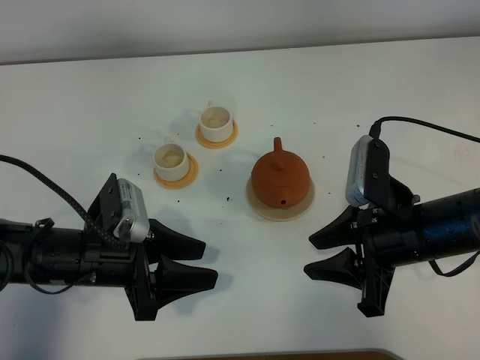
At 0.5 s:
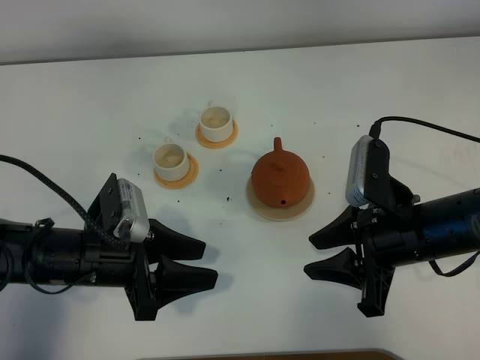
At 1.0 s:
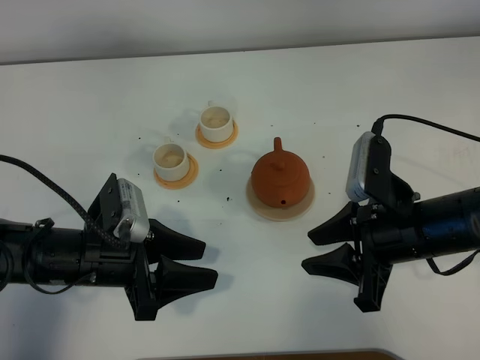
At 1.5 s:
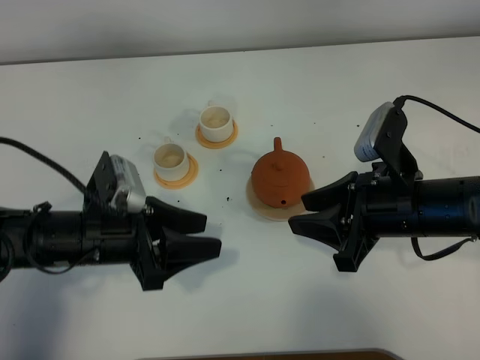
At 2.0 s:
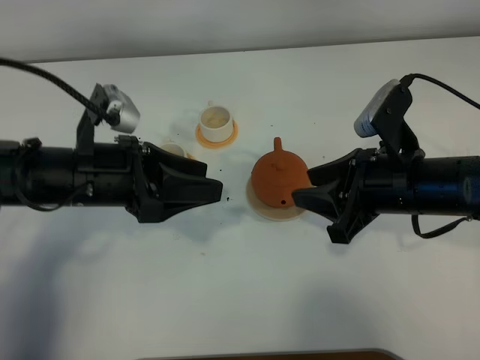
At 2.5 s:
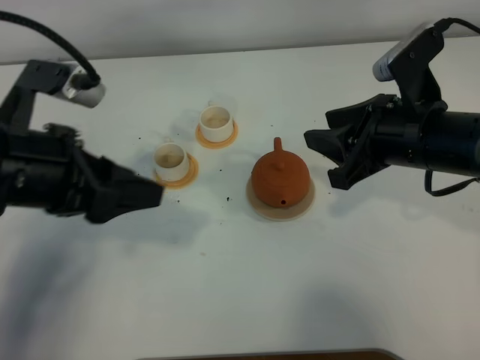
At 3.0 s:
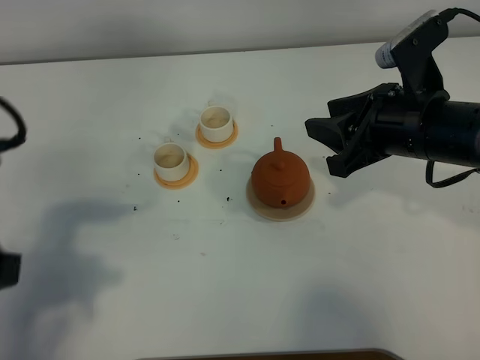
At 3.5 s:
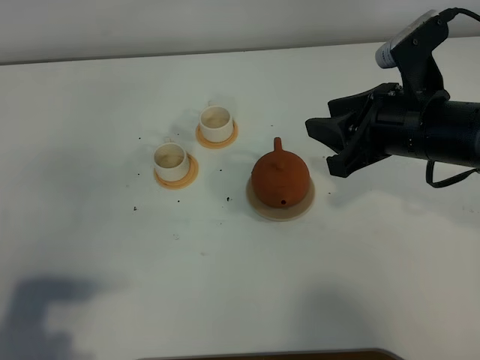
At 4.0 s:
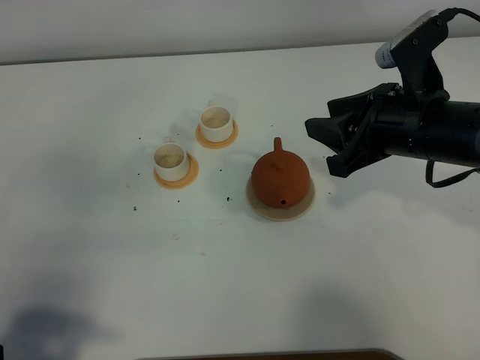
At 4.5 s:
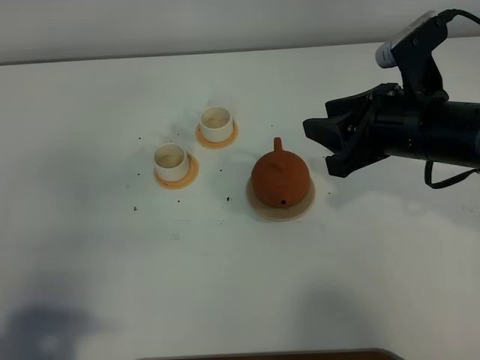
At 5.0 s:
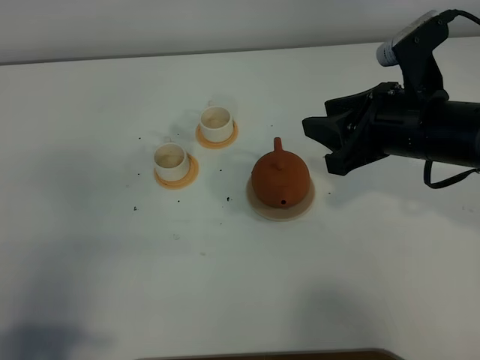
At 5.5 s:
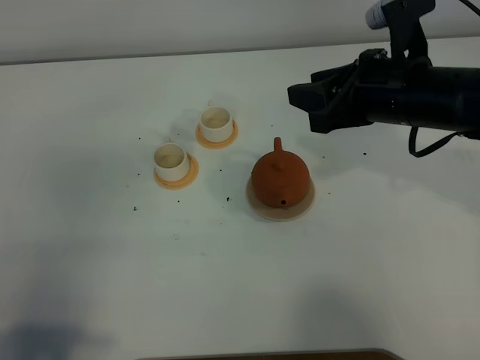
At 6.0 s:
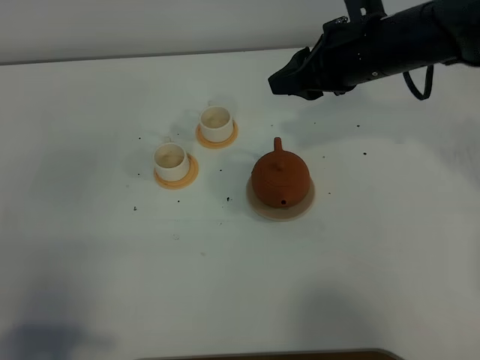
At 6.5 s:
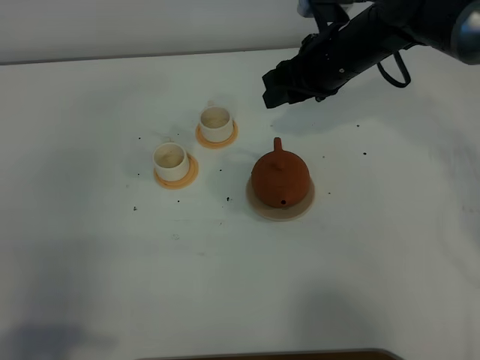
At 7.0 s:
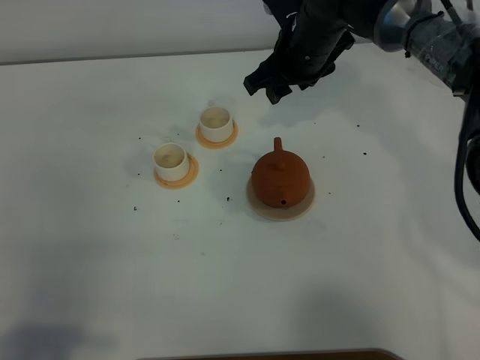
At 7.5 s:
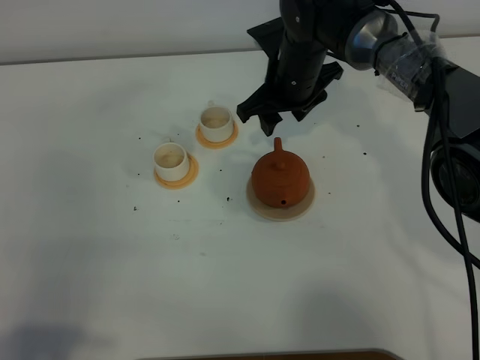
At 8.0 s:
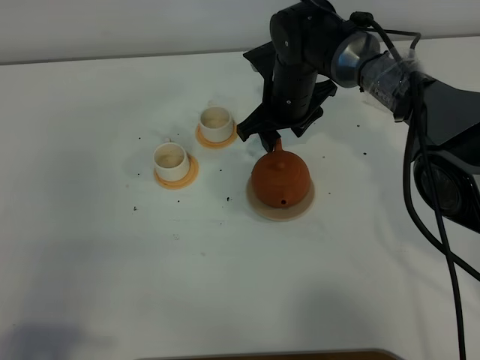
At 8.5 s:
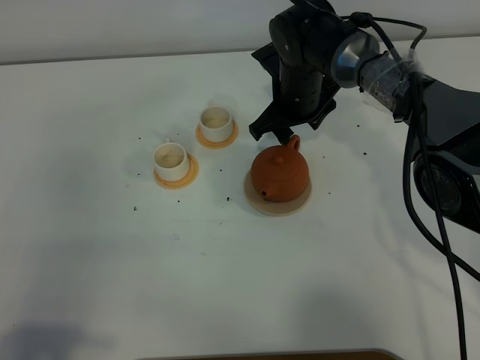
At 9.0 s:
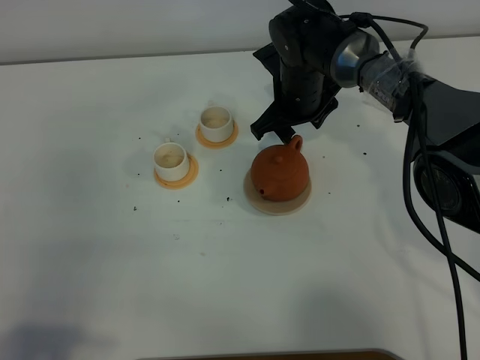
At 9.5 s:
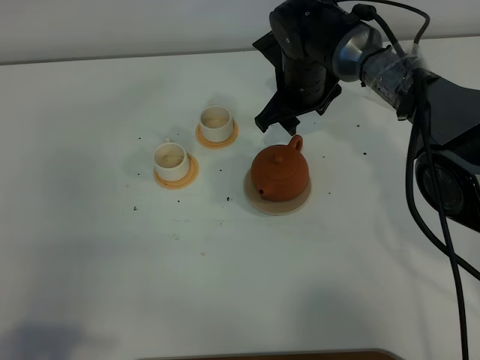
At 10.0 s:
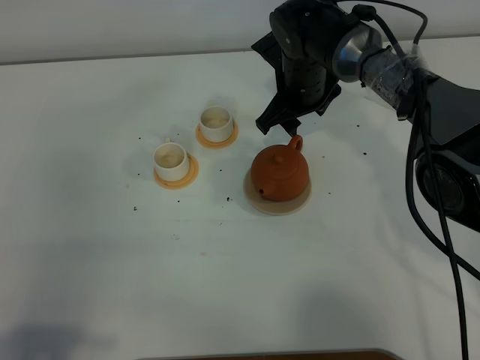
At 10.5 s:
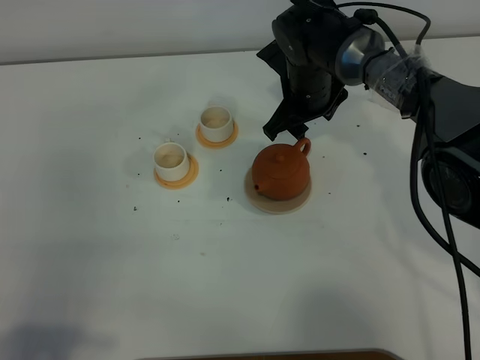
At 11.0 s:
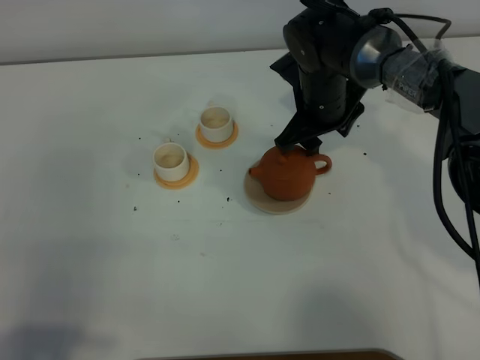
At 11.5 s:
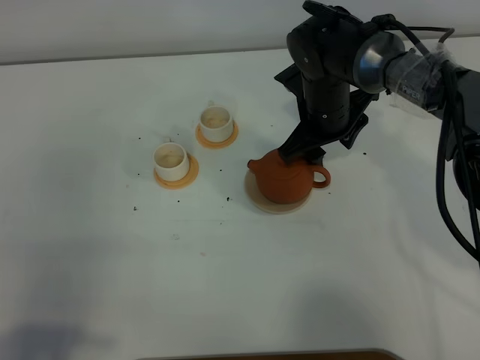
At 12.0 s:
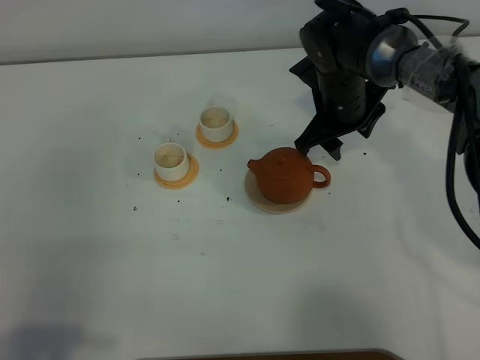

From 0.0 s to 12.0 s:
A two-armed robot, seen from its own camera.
Task of the whole recording: grasp the brown teapot and pour the tea into the two white teacups one by one, put the brown teapot back in its original place.
From 0.0 s to 2.0 s: The left gripper heads upward and forward, covering roughly 10 cm.
From 2.0 s to 4.0 s: The left gripper heads backward and to the left, covering roughly 25 cm. Meanwhile the right gripper heads upward, covering about 5 cm.
From 4.0 s to 6.0 s: The right gripper travels forward and to the left by about 10 cm.
From 6.0 s to 8.0 s: The right gripper goes some 15 cm downward, to the left and forward.
From 8.0 s to 10.0 s: The grippers make only small movements.
From 10.0 s to 12.0 s: The right gripper heads to the right, covering about 5 cm.

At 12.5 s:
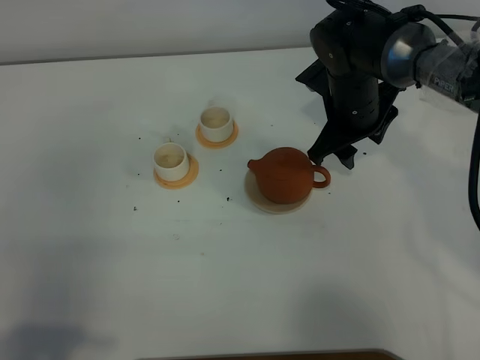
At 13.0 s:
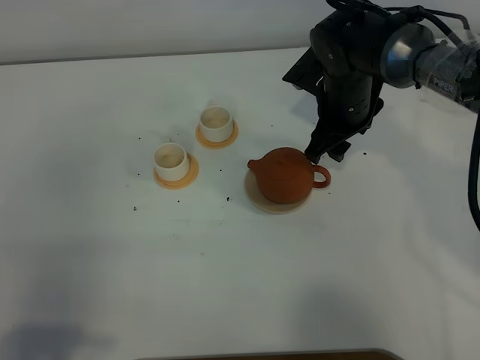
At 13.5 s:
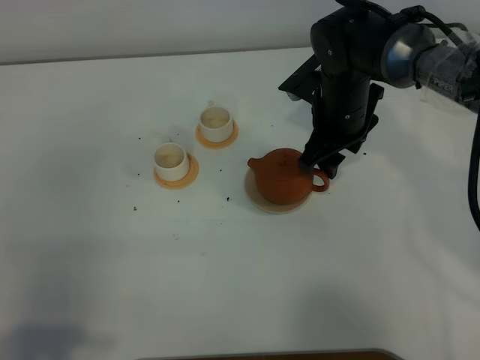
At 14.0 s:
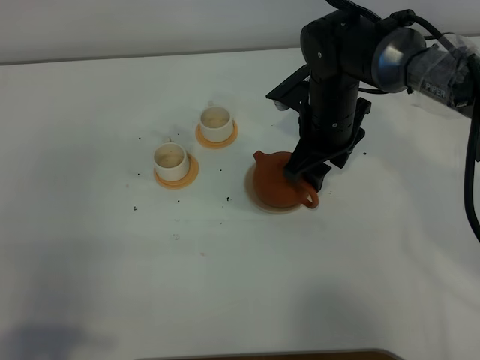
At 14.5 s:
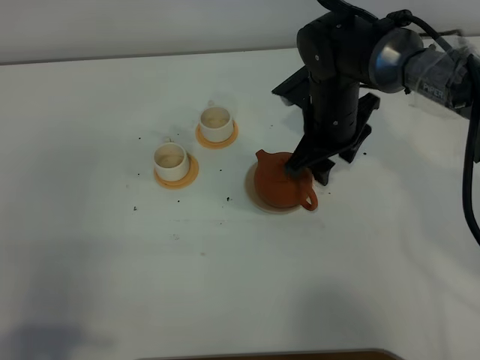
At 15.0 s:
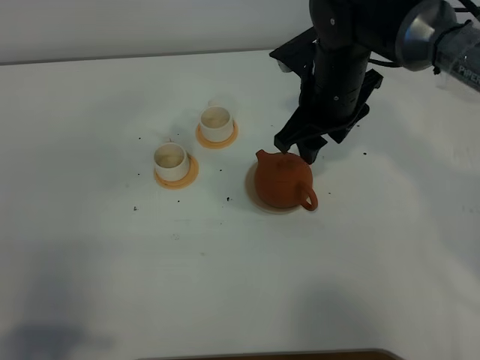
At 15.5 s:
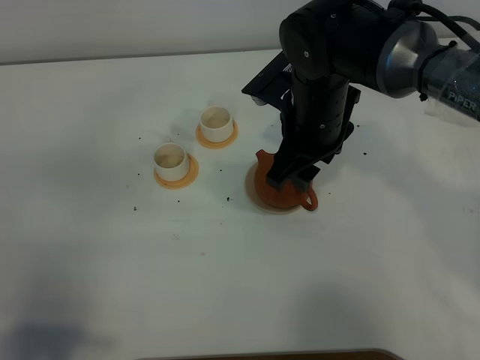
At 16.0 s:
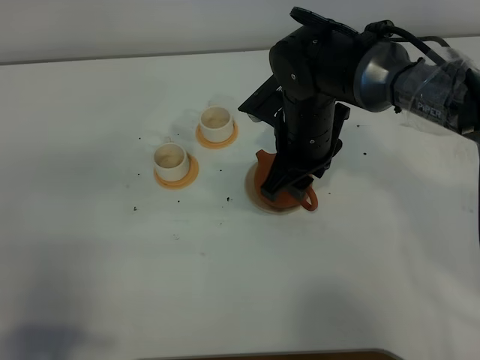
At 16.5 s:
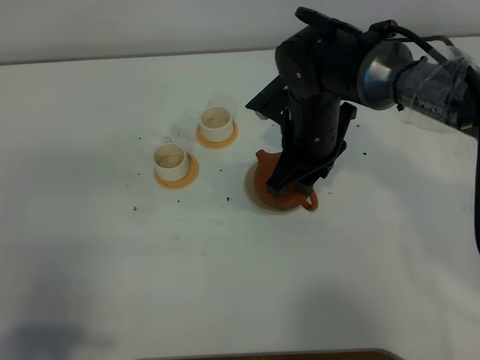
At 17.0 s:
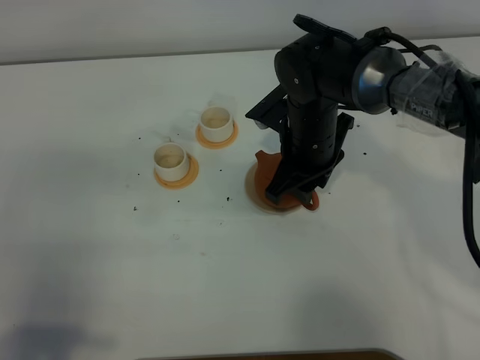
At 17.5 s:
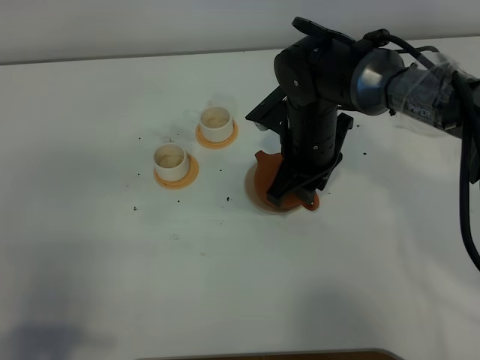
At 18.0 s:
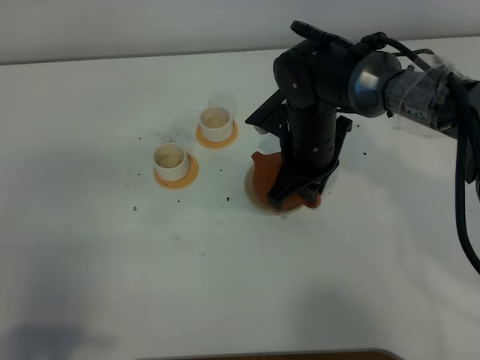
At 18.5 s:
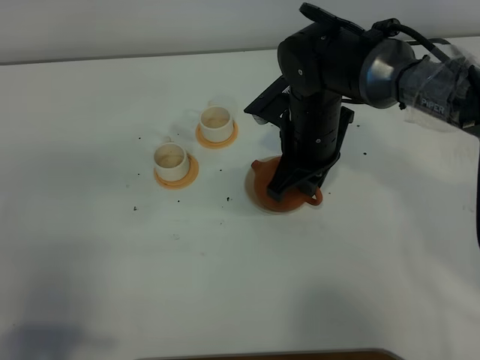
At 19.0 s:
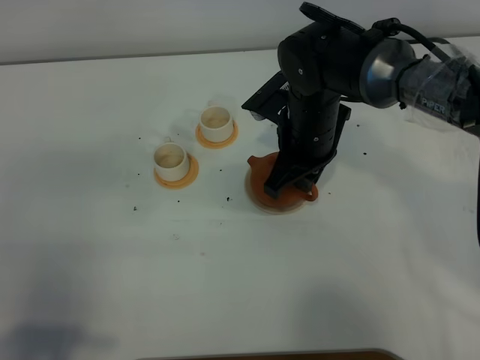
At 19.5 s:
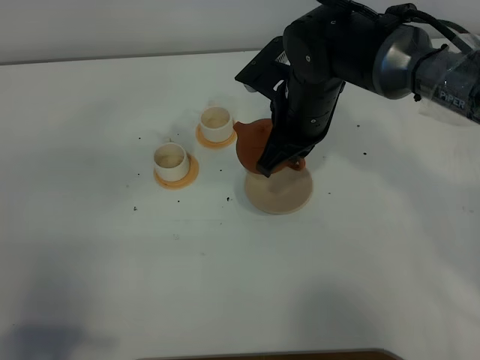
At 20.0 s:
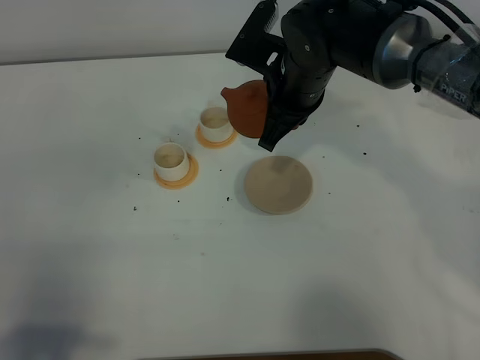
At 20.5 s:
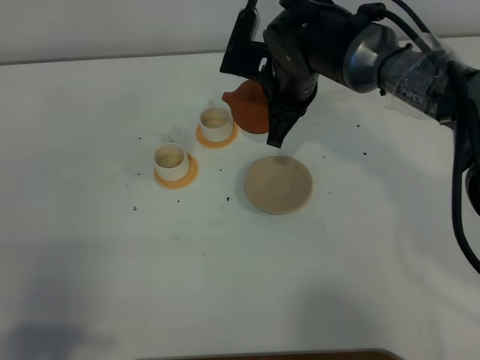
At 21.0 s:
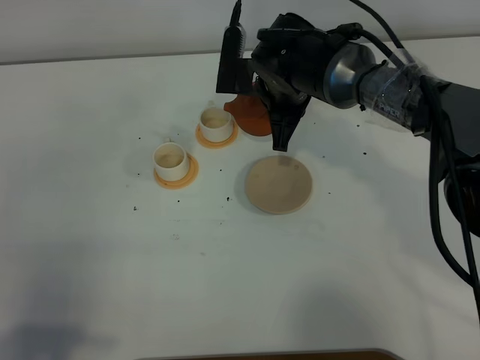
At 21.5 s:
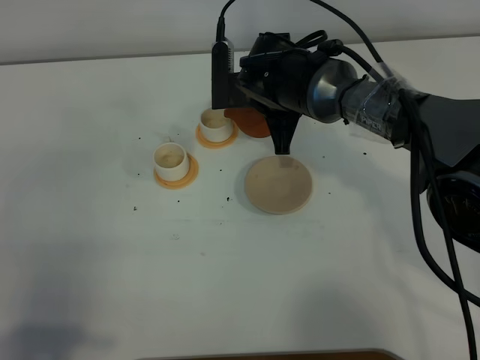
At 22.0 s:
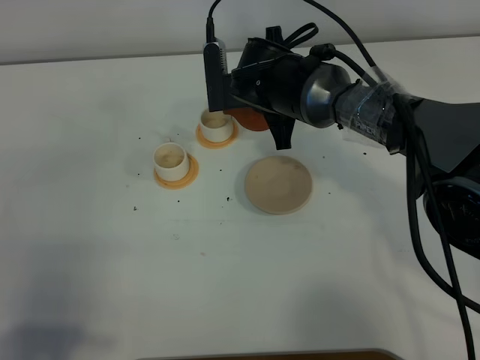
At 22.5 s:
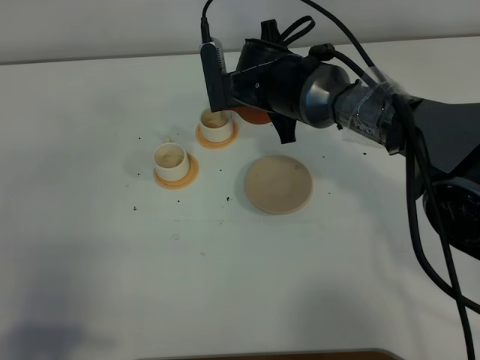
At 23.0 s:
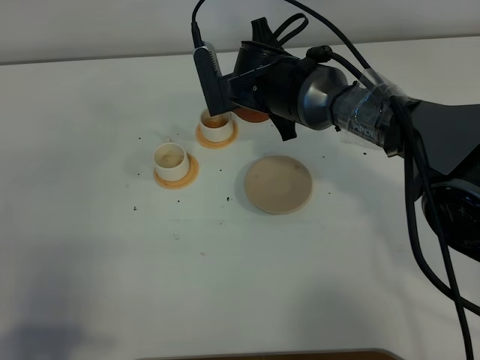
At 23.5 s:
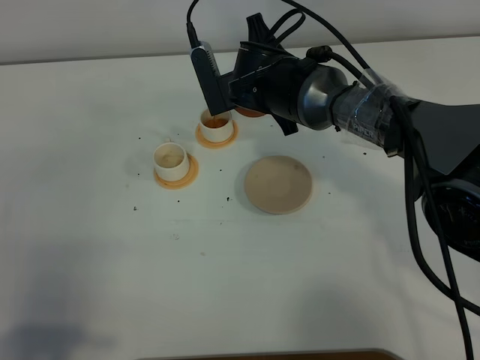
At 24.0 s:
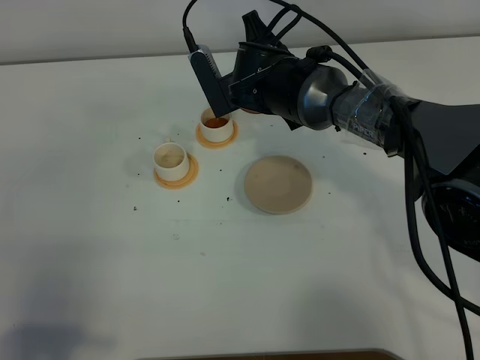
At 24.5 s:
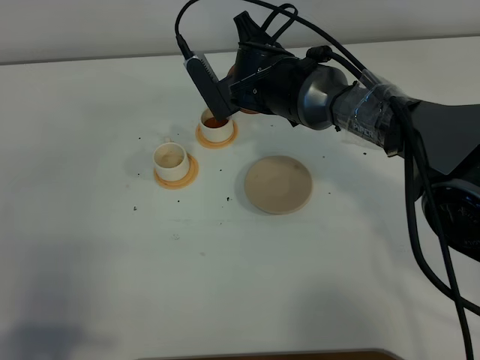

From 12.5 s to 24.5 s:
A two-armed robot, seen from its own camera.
Task of the whole recording: grasp the brown teapot and pour the tea into the two white teacups one by one, put the brown teapot back in its original place.
Step, from 12.5 s to 19.0 s: Pick up the teapot with the right gripper.
From 12.5 s to 14.5 s: The grippers stay close to where they were, moving slightly.
From 16.5 s to 18.5 s: The right gripper closes up.
From 18.5 s to 20.5 s: The right gripper shifts about 5 cm forward.

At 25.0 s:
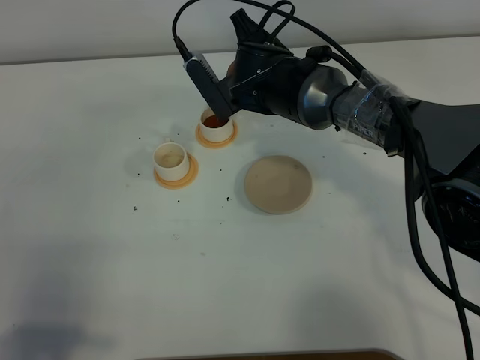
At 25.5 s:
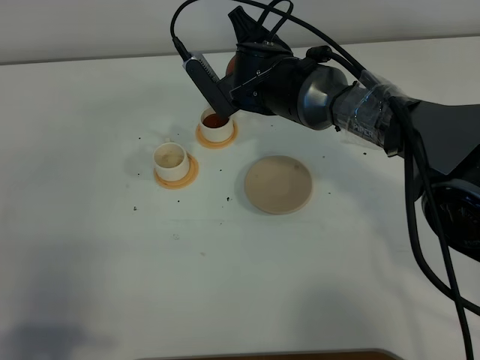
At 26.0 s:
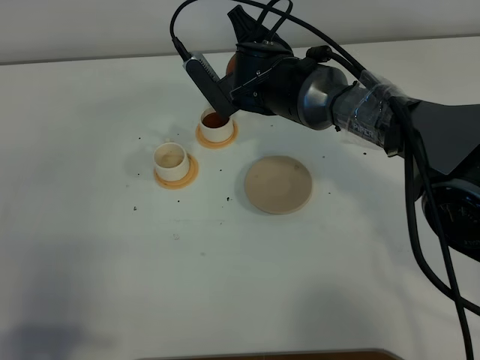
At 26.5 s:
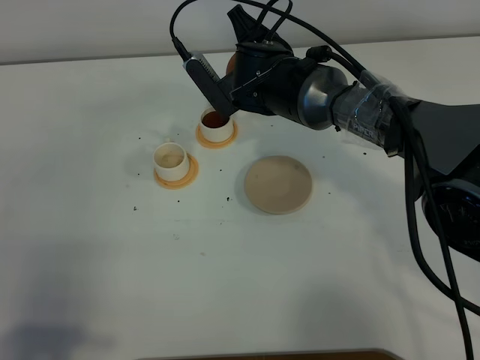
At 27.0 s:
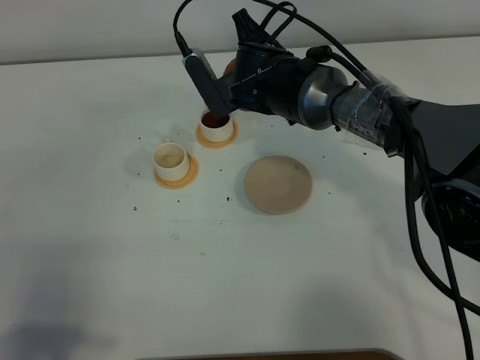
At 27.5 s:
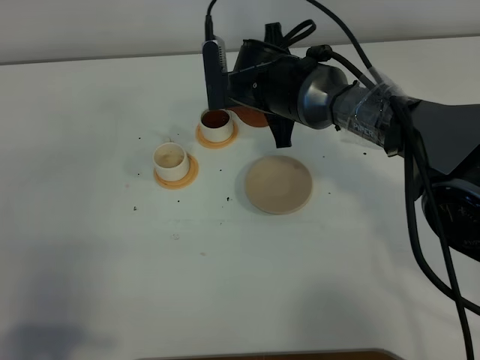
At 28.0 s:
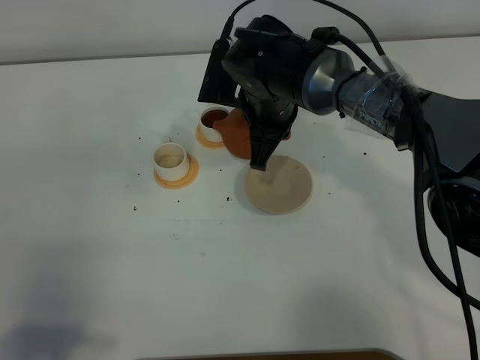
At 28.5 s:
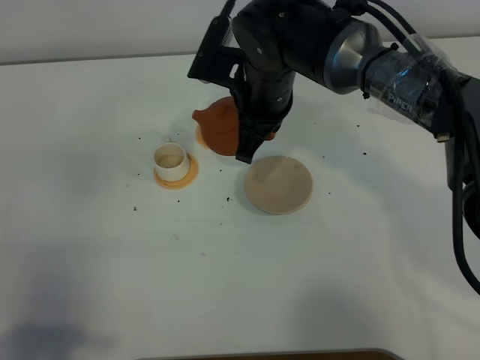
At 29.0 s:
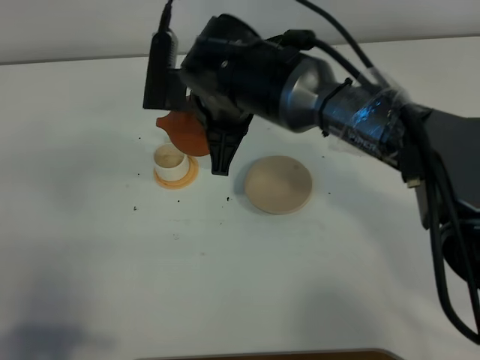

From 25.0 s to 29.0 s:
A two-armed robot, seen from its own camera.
Task of the whole recording: grasp the brown teapot and pour the tea into the two white teacups one by one, put the brown teapot back in its original place.
Step, from 25.0 s to 28.0 s: Pour tea into the teacup with the right gripper.
From 25.0 s to 27.0 s: There are only small adjustments of the grippers.
From 27.0 s to 29.0 s: The right gripper moves backward, about 10 cm.
